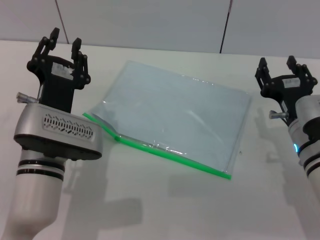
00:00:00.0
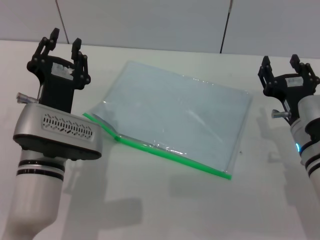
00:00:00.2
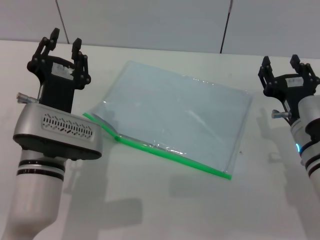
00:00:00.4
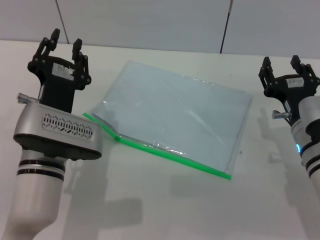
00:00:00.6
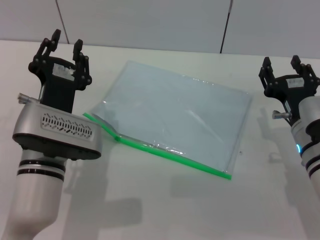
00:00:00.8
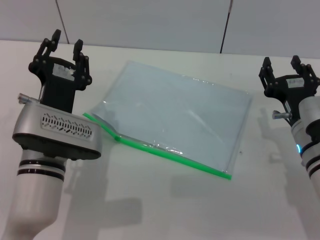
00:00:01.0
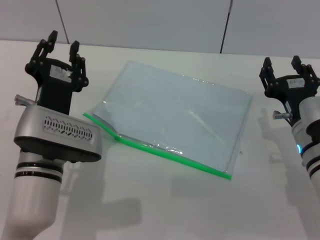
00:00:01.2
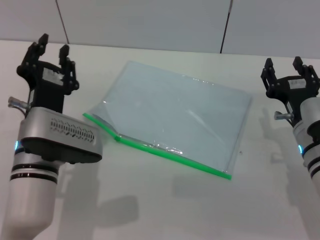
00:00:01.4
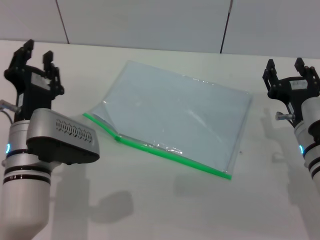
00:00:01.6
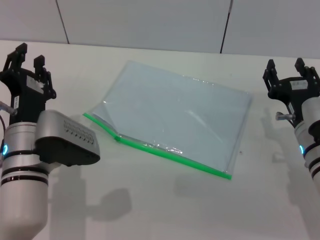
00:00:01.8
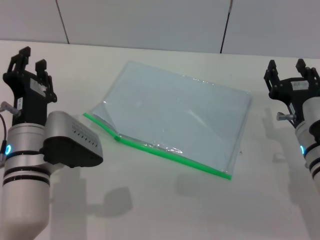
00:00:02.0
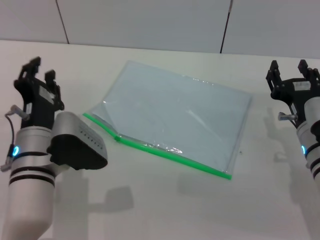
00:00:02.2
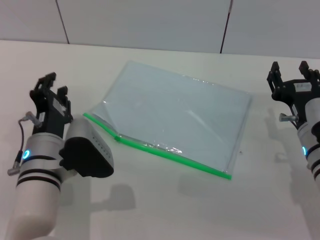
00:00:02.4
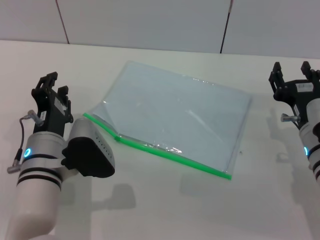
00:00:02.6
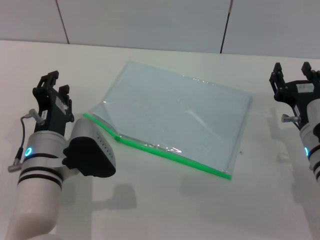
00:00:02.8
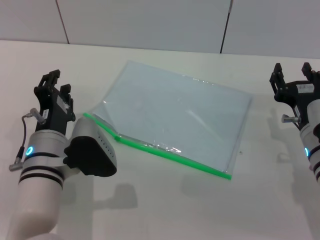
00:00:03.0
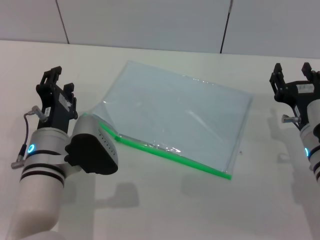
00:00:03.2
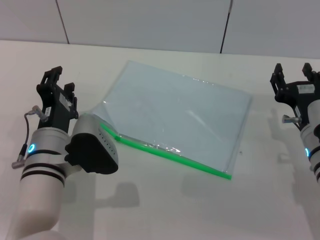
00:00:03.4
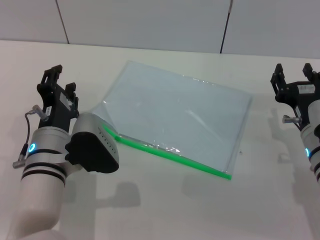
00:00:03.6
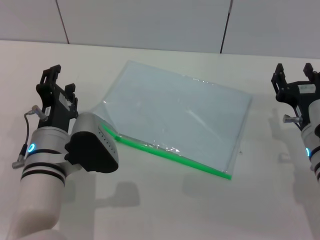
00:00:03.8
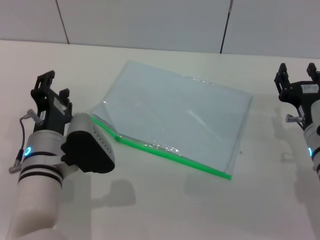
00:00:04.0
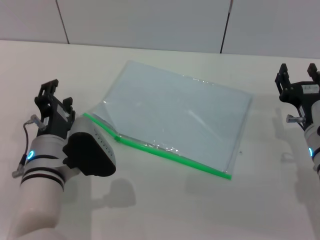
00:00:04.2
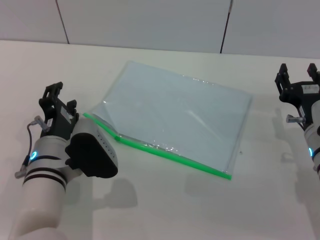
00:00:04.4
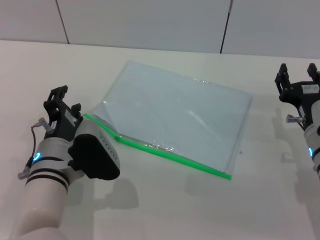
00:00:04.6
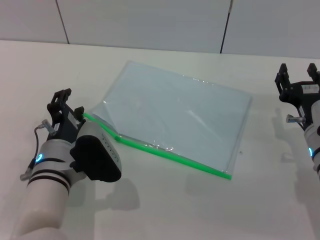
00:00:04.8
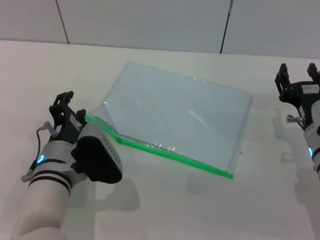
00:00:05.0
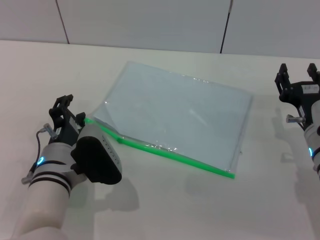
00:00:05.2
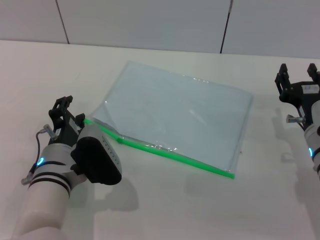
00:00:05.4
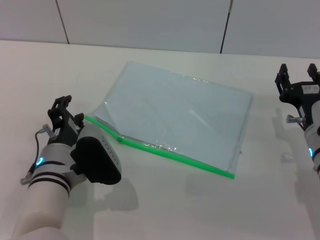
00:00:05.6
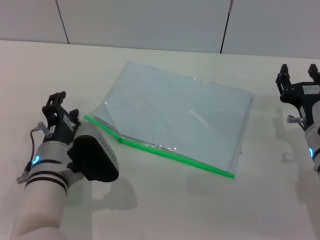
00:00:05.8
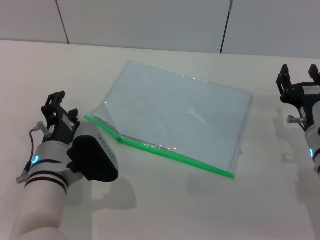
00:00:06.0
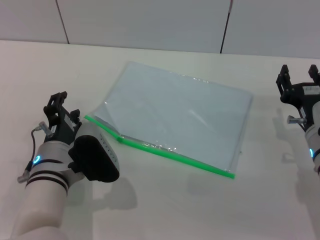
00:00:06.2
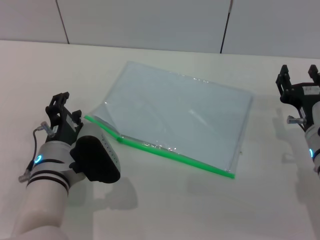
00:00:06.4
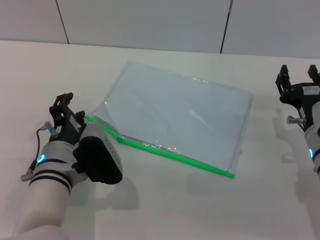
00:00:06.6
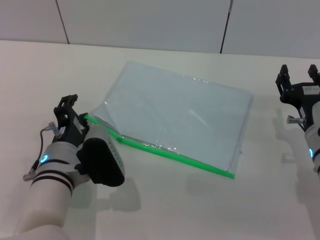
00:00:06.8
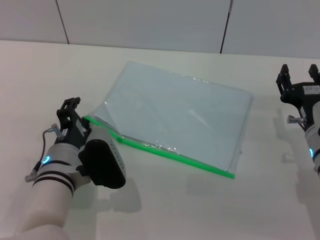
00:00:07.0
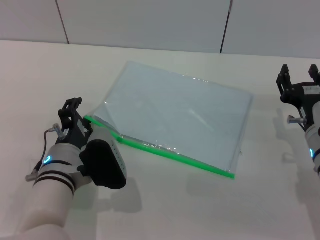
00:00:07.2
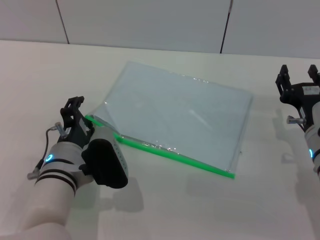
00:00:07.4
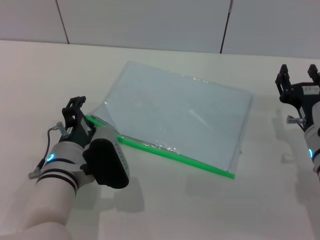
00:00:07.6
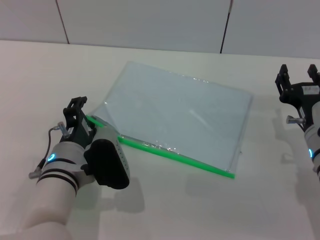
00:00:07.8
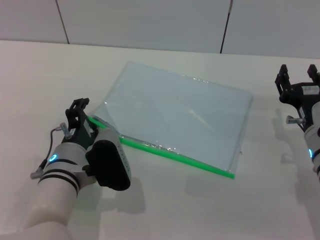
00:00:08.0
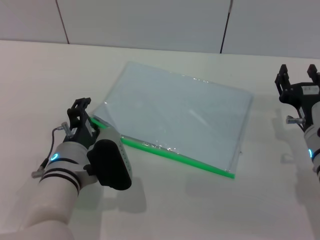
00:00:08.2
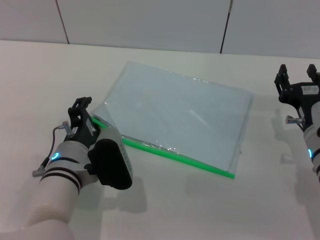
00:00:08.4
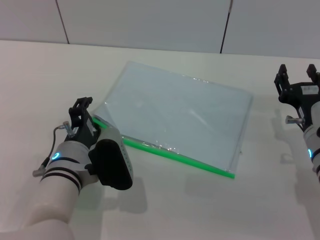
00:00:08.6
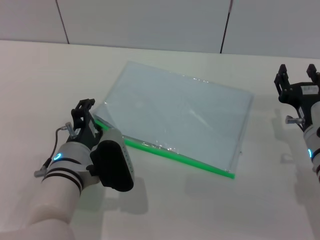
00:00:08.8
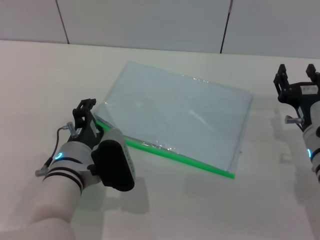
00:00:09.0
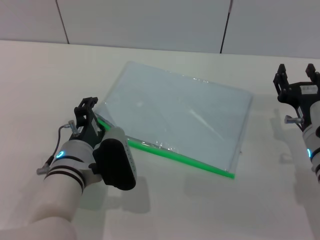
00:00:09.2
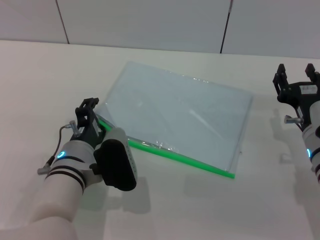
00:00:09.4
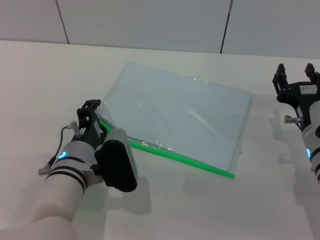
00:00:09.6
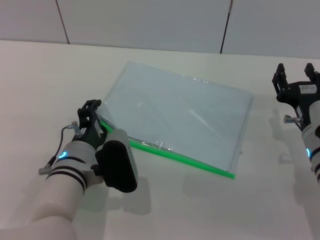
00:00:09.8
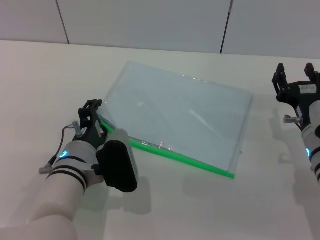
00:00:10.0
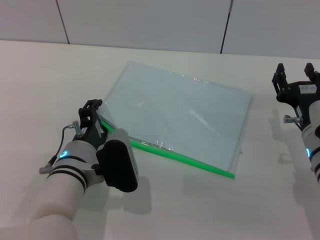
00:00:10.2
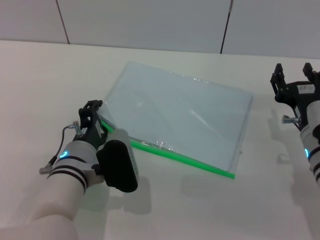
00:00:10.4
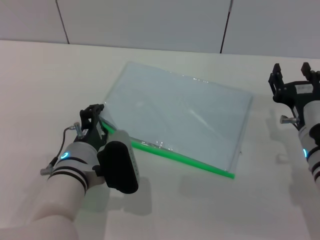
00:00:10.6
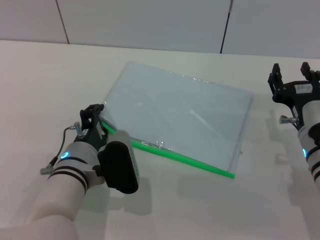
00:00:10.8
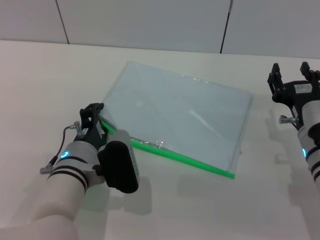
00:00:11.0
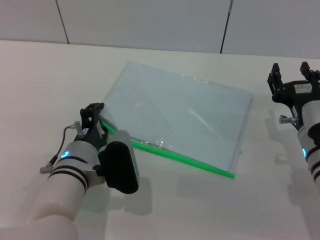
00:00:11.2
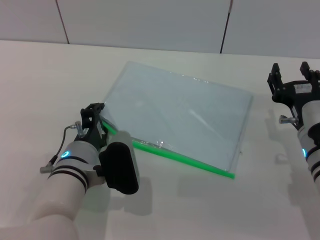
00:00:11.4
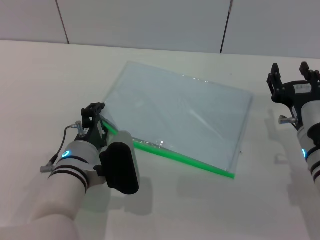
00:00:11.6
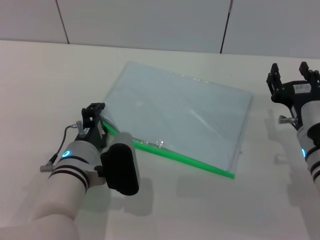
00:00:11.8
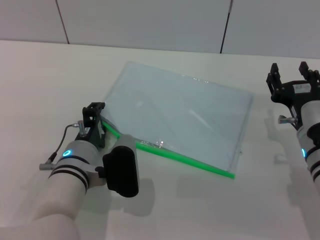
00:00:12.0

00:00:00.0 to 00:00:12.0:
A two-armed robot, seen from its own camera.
00:00:00.0 to 00:00:01.6: The grippers move only a little.
00:00:03.0 to 00:00:07.6: The grippers stay close to where they were, moving slightly.
00:00:07.6 to 00:00:09.0: The two grippers keep their place.
00:00:09.0 to 00:00:10.4: The two grippers keep their place.
00:00:10.4 to 00:00:12.0: The grippers stay close to where they were, moving slightly.

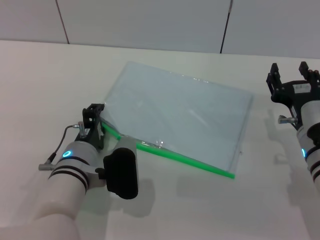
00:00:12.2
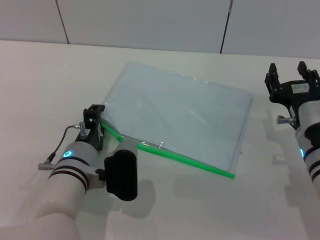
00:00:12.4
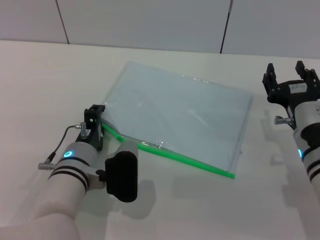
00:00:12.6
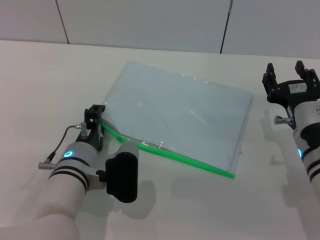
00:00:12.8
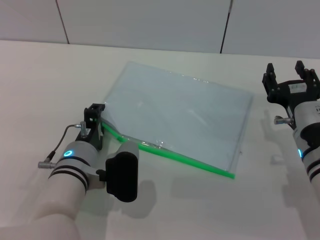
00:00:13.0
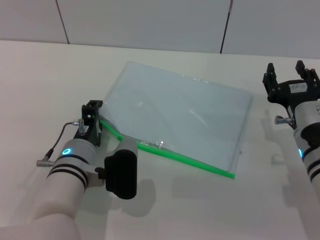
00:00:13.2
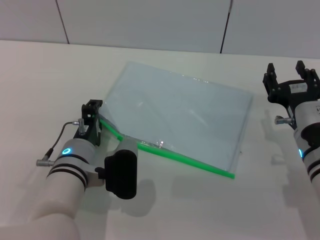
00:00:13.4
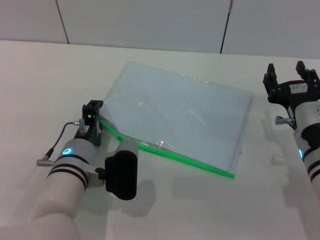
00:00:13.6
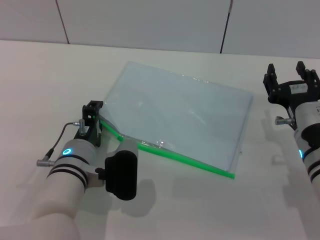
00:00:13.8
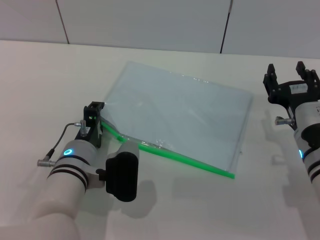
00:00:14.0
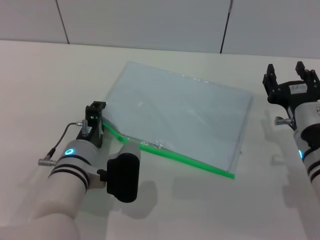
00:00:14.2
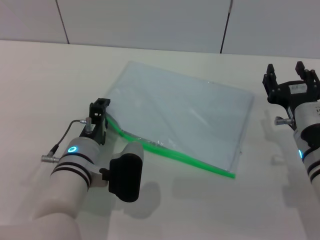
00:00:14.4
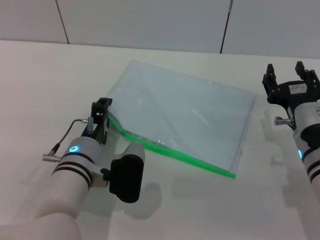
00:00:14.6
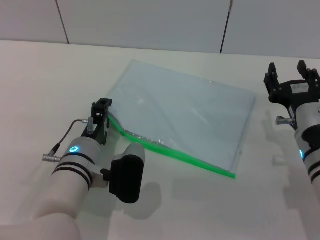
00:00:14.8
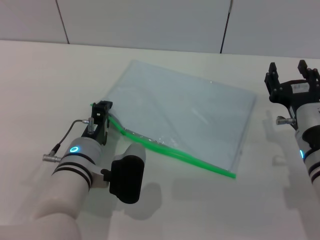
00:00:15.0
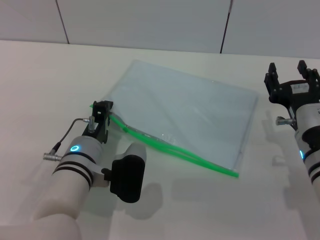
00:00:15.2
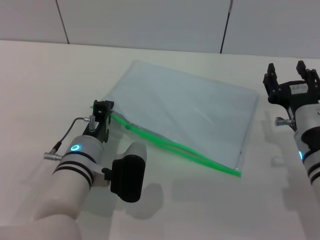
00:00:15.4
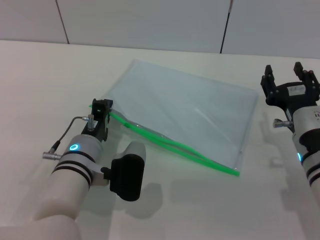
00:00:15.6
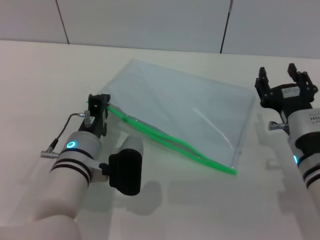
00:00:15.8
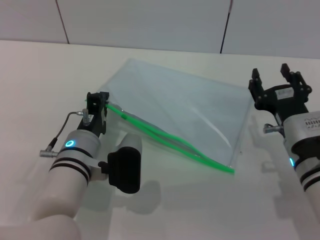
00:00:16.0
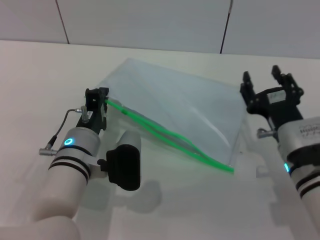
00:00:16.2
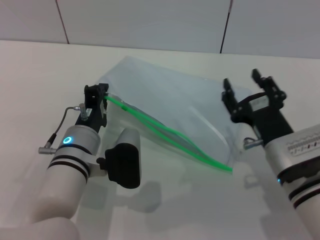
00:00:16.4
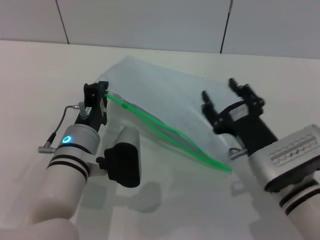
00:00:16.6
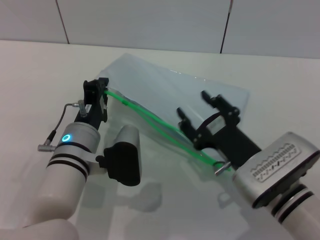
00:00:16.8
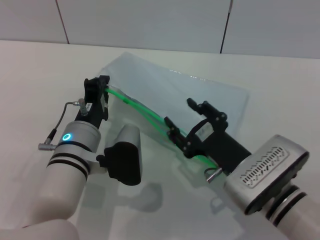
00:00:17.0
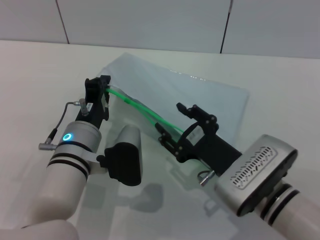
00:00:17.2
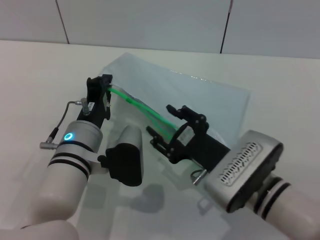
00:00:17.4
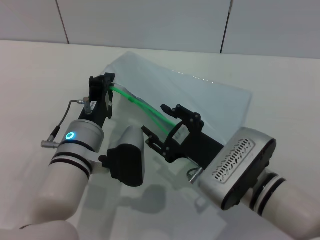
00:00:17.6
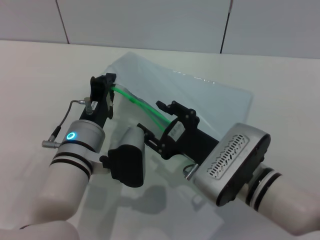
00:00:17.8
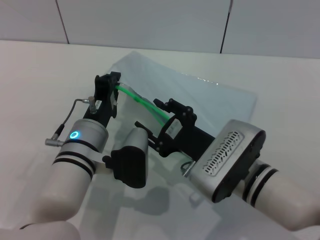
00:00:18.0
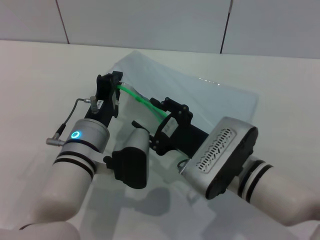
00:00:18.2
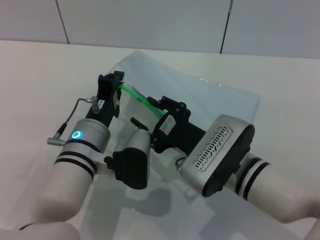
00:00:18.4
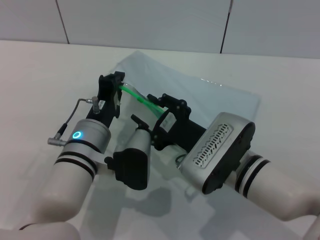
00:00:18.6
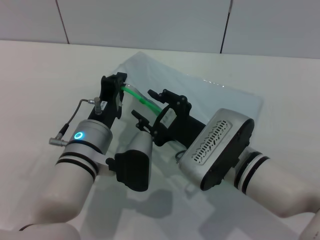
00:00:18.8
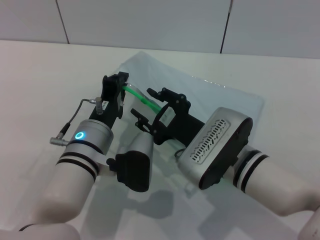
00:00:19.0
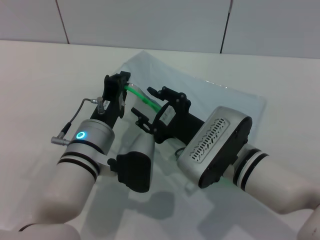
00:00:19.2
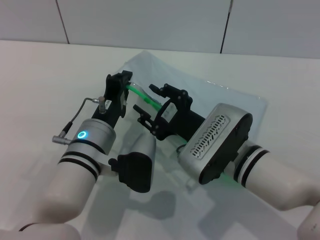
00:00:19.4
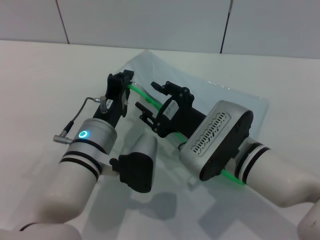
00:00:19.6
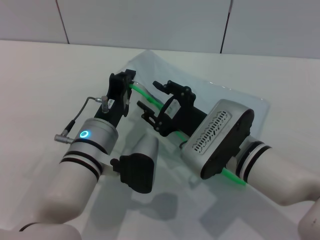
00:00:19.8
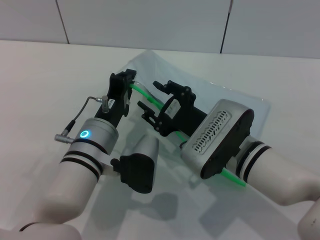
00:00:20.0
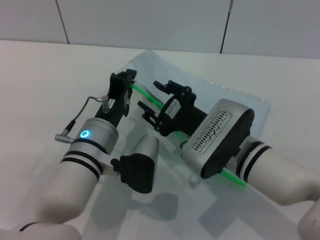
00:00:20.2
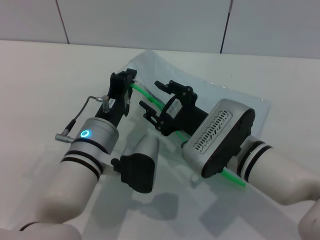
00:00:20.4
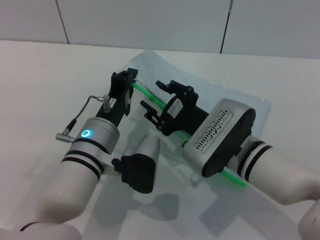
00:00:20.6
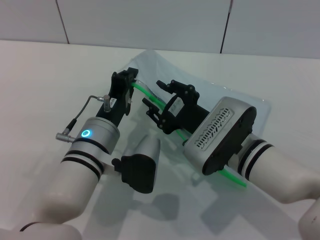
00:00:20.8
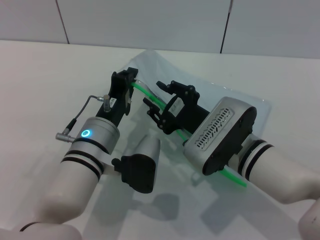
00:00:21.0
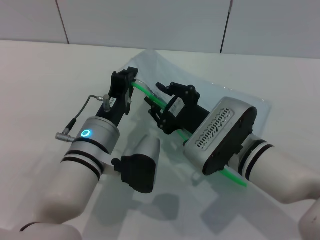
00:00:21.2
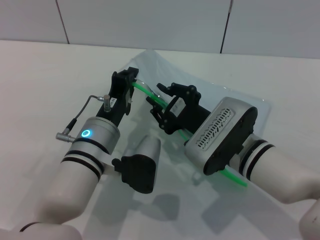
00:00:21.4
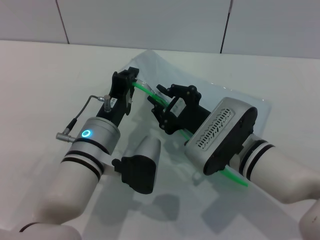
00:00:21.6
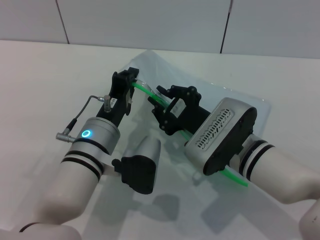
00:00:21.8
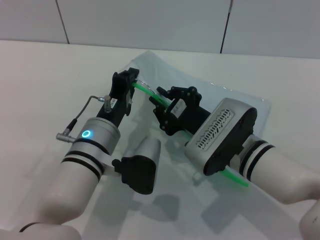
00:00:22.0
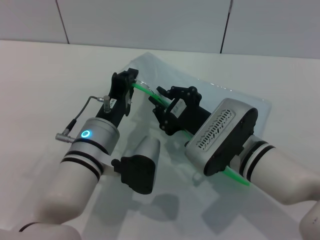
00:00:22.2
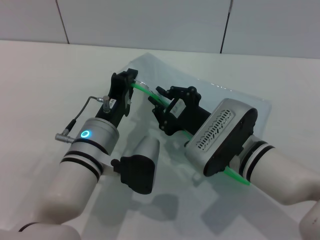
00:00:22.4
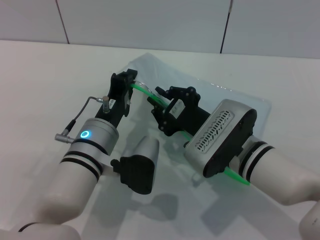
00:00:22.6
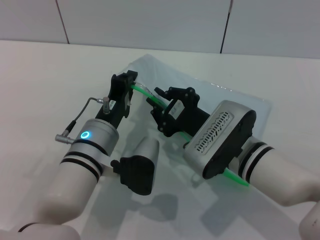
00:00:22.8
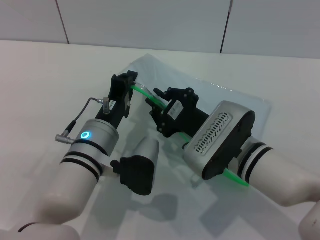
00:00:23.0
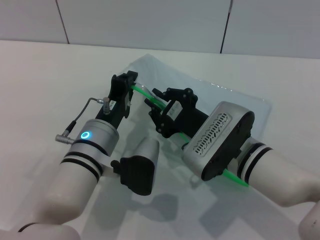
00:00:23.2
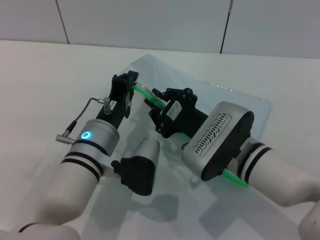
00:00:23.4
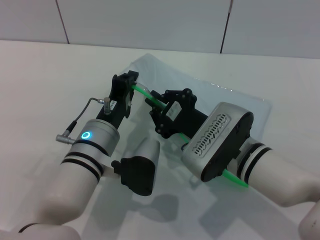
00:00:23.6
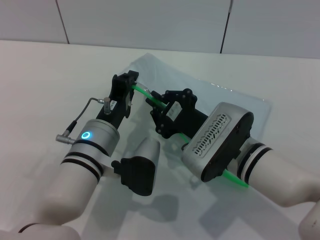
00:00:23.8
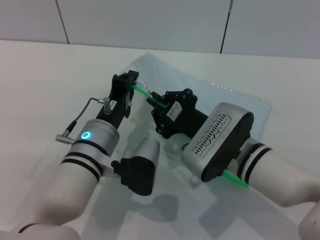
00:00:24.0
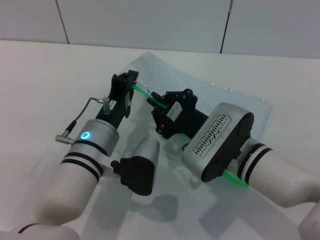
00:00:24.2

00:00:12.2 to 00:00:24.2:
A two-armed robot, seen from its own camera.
Step, 00:00:12.2 to 00:00:16.2: Pick up the transparent plastic bag with the left gripper.
00:00:12.2 to 00:00:15.2: The grippers move only a little.
00:00:15.2 to 00:00:16.6: The right gripper shifts by roughly 5 cm, while the left gripper closes up.
00:00:16.6 to 00:00:18.2: The right gripper heads to the left, covering roughly 5 cm.
00:00:19.8 to 00:00:24.2: Both grippers stay put.
